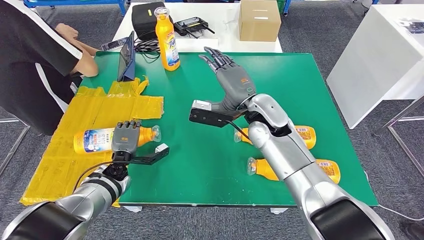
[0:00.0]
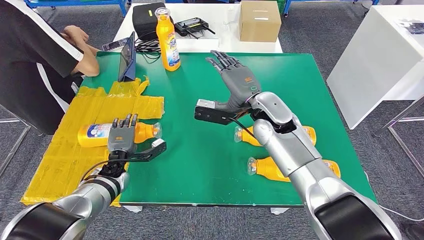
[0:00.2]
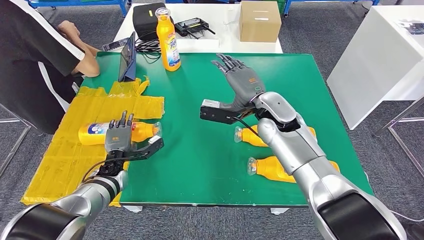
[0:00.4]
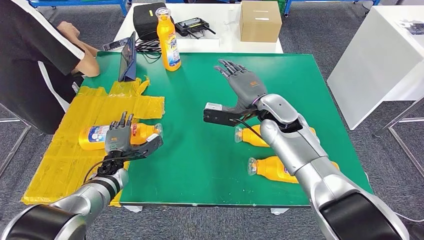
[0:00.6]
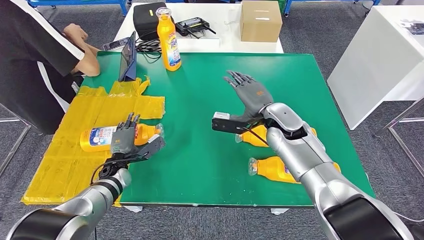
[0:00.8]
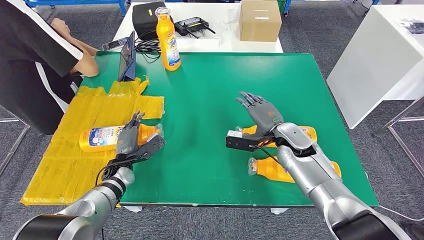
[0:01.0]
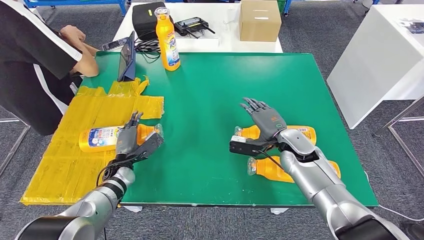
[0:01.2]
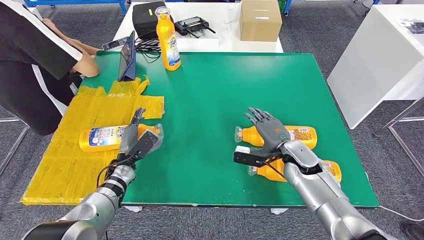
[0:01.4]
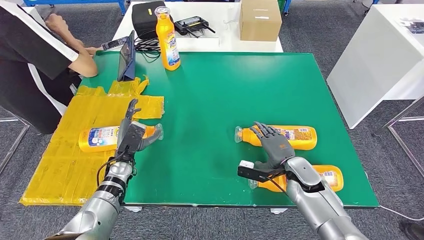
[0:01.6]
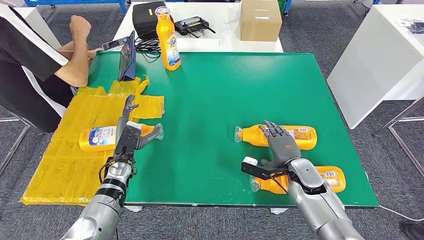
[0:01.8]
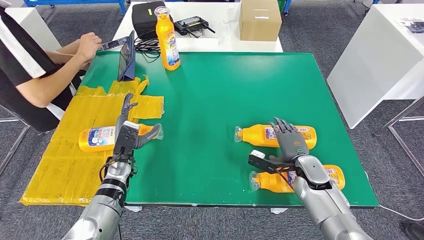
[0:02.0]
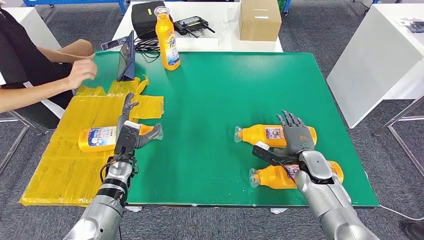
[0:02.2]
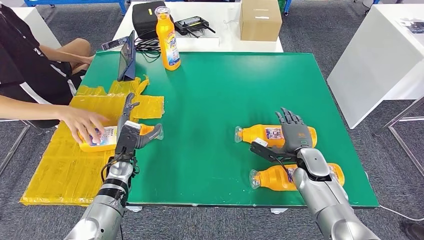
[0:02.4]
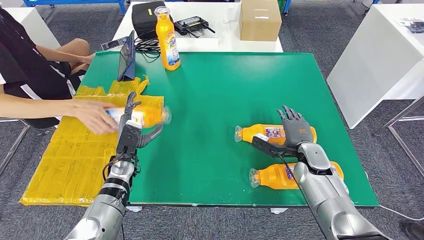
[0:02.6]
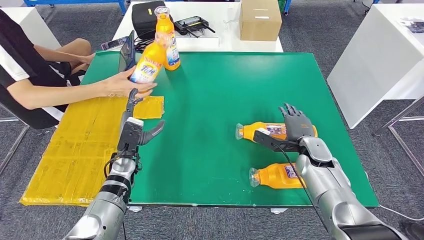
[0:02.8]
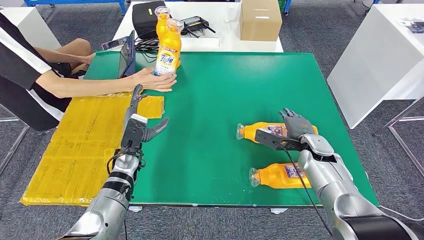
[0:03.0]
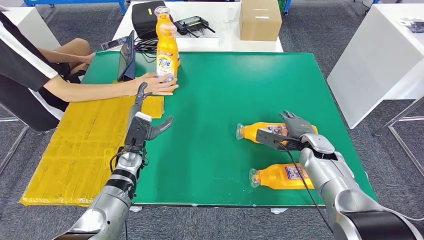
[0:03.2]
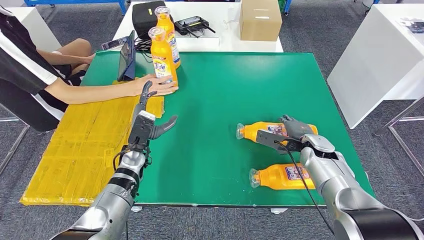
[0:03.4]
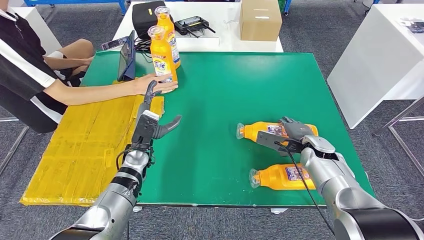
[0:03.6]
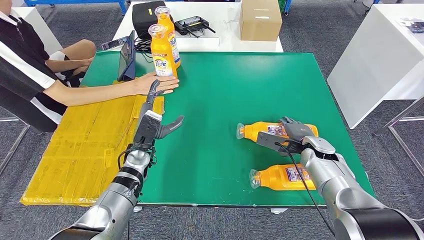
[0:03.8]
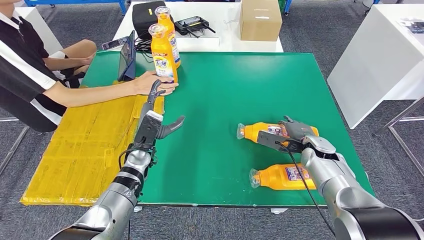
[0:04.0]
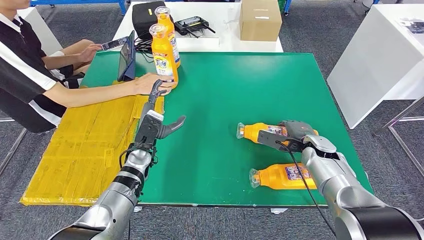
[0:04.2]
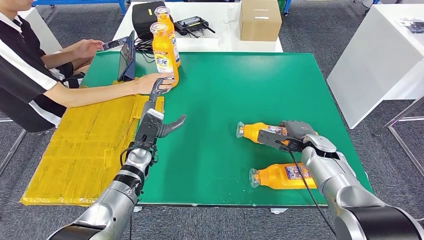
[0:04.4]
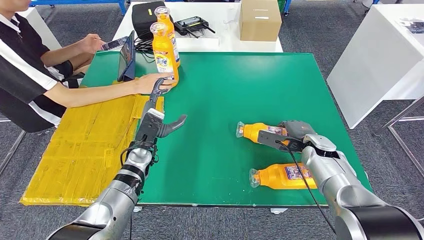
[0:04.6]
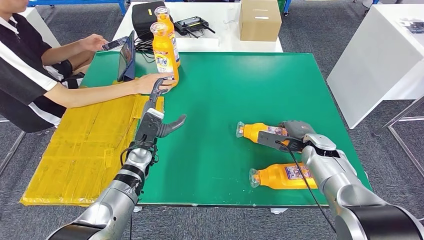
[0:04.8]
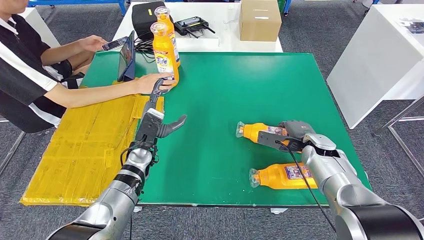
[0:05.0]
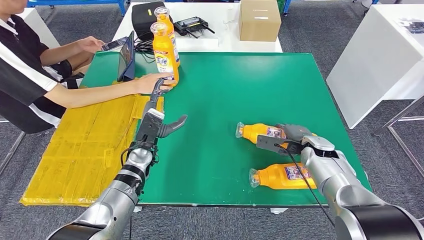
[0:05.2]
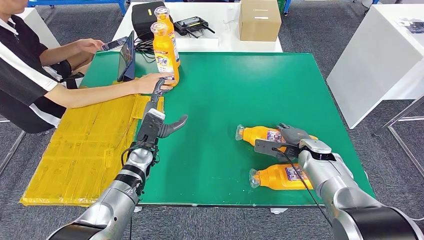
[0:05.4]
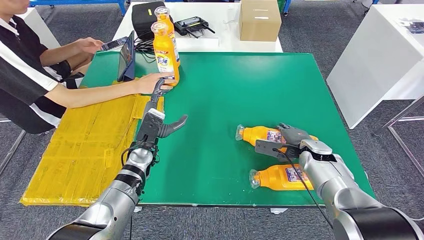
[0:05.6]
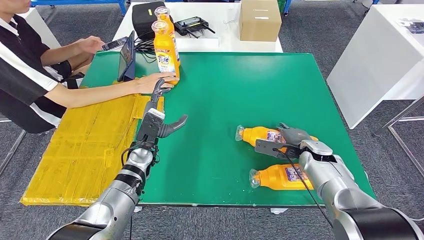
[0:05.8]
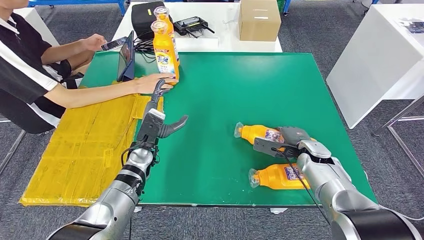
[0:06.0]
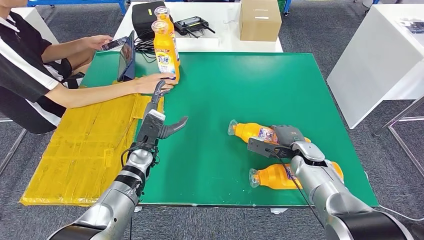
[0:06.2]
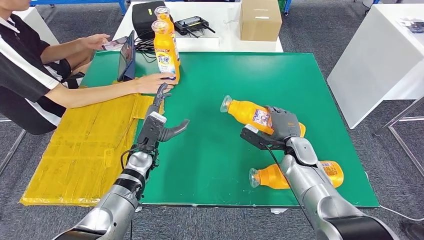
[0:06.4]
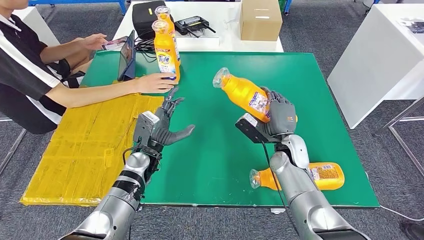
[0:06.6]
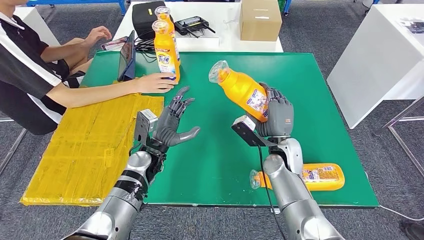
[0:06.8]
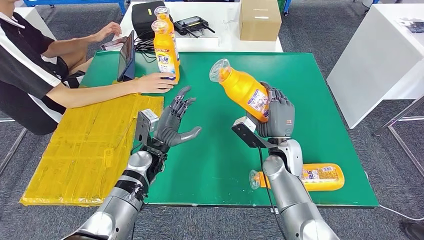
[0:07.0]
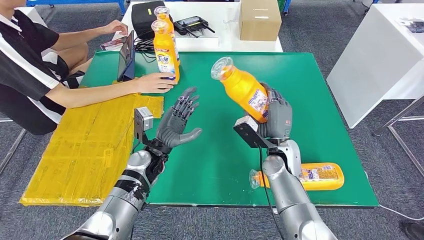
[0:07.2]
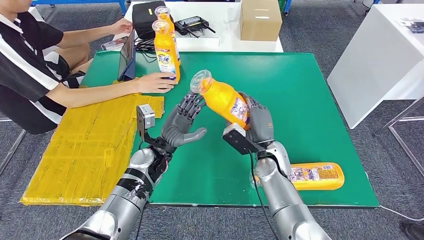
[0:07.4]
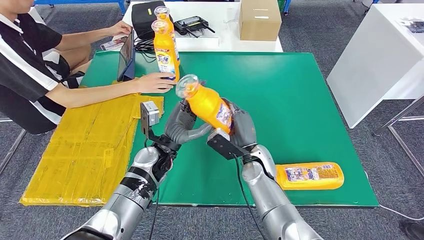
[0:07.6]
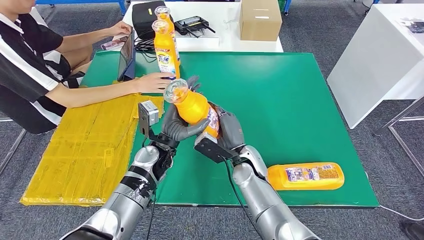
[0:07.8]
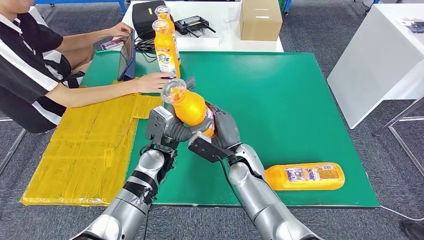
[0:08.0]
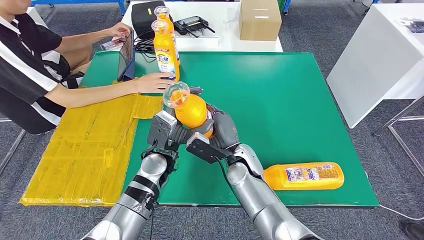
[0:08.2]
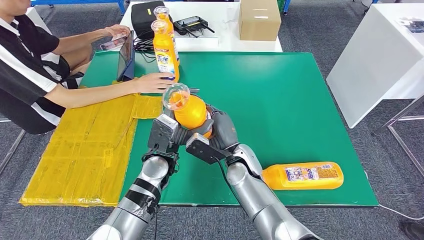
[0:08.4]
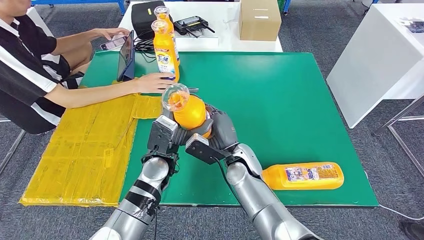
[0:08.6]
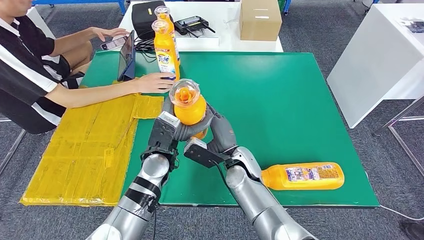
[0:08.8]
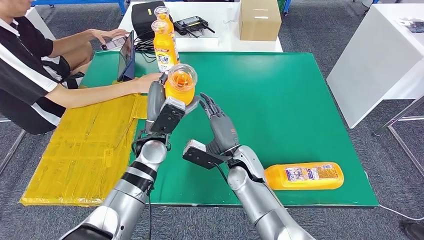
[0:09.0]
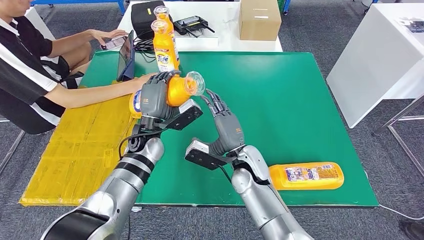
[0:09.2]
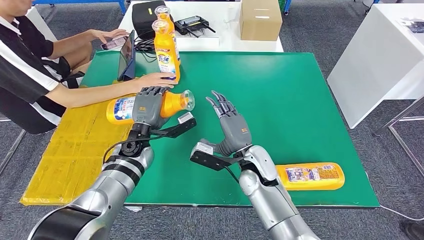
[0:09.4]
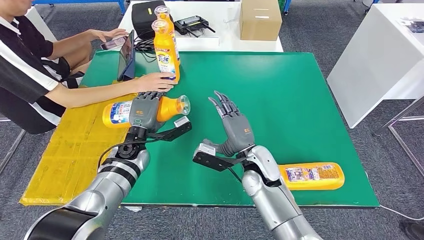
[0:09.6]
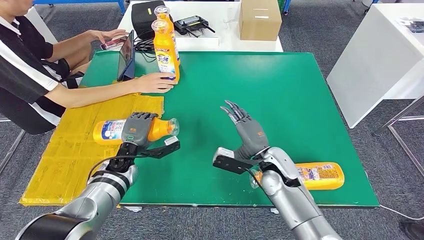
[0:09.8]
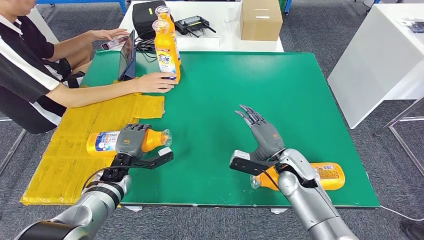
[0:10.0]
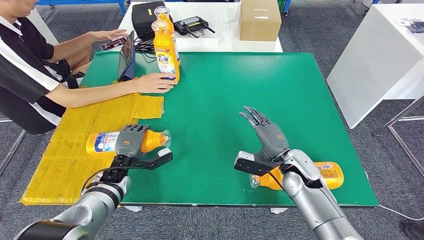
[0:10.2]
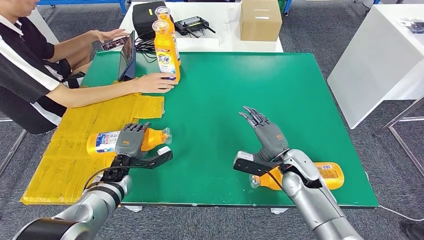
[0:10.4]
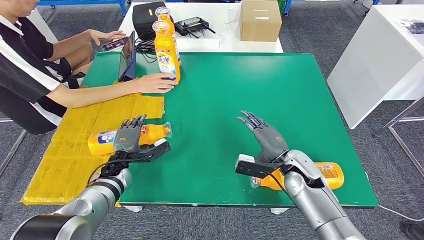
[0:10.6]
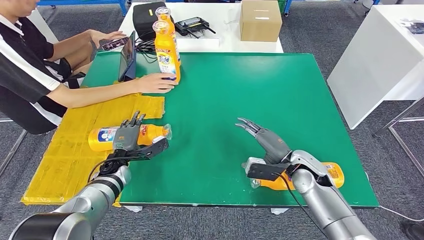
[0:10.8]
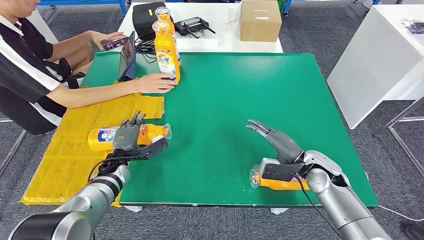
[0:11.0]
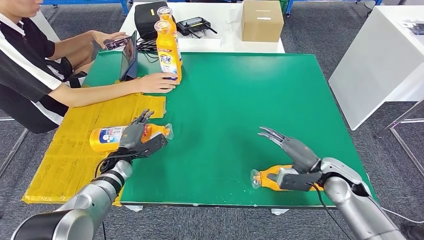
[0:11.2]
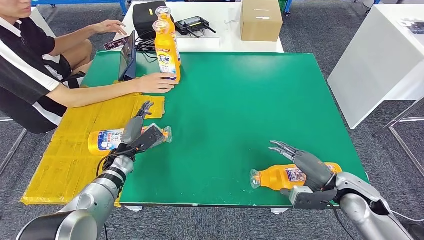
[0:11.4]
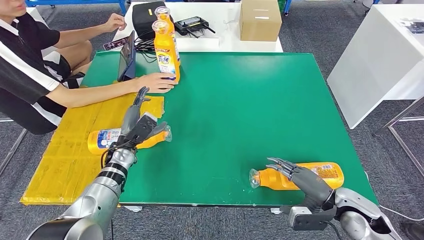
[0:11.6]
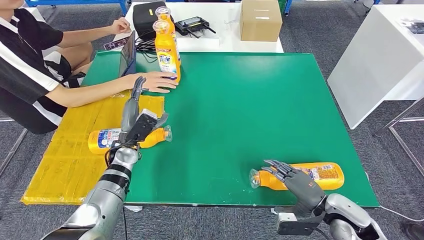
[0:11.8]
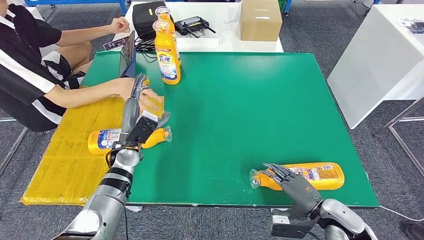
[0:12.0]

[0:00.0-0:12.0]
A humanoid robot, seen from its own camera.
Step, 0:00.0 to 0:03.0: Flip the fast-moving consumer goods bottle to the front side.
Step, 0:03.2 to 0:09.6: Pick up the fast-moving consumer goods bottle from the table.
0:03.0 to 0:06.0: The hands move only a little.
0:10.4 to 0:12.0: The right hand travels backward, to the right and downward by roughly 15 cm; the left hand travels upward and to the right by approximately 10 cm.

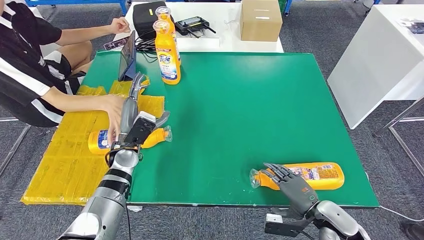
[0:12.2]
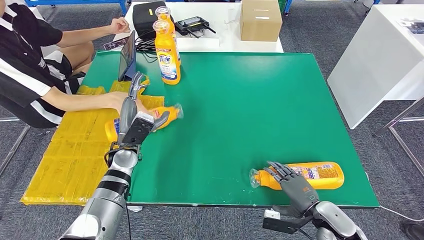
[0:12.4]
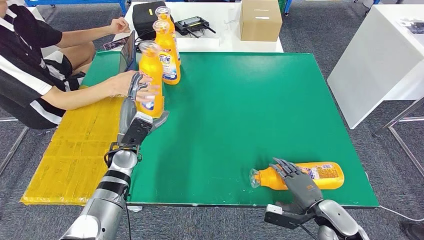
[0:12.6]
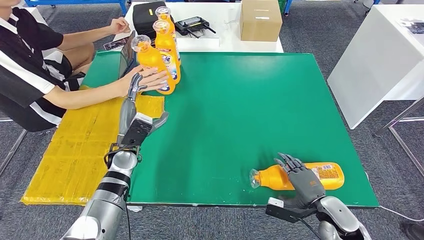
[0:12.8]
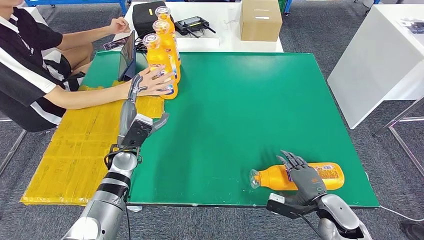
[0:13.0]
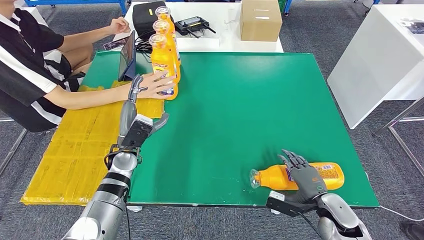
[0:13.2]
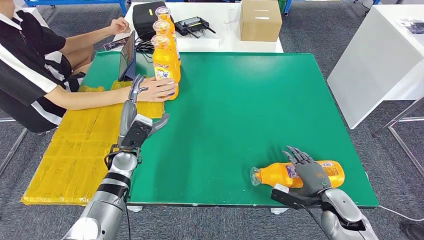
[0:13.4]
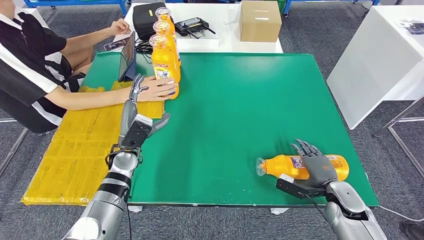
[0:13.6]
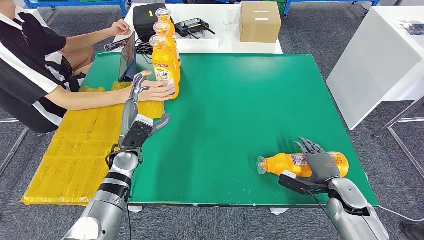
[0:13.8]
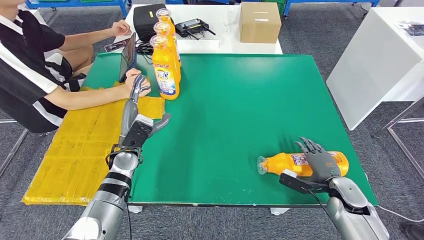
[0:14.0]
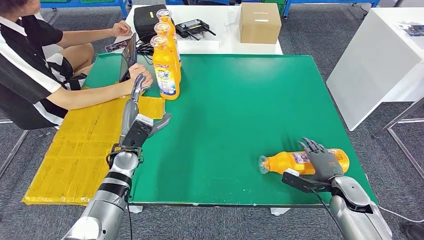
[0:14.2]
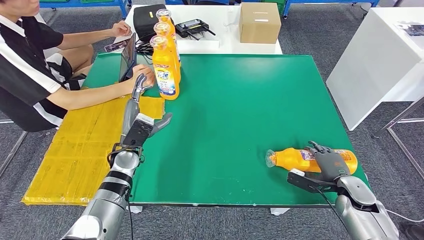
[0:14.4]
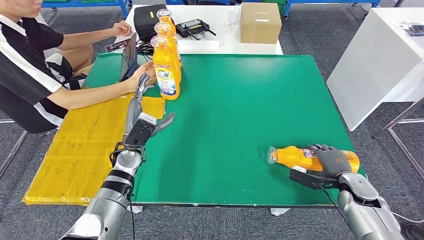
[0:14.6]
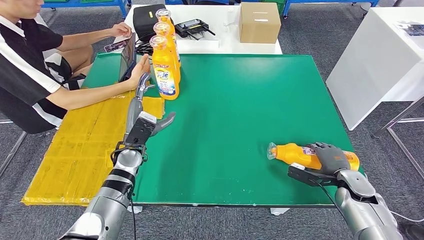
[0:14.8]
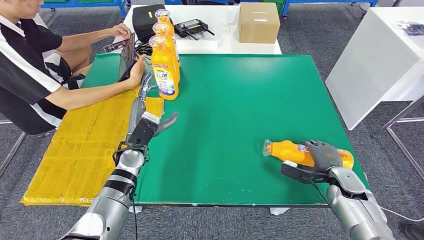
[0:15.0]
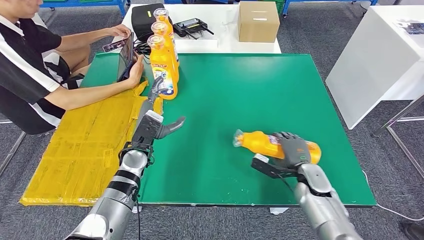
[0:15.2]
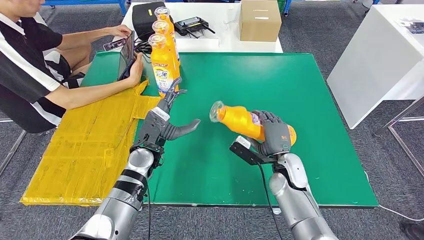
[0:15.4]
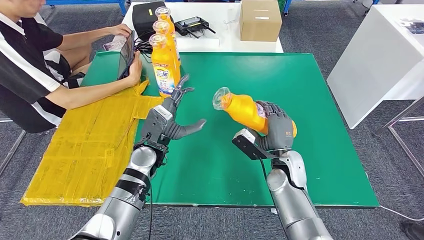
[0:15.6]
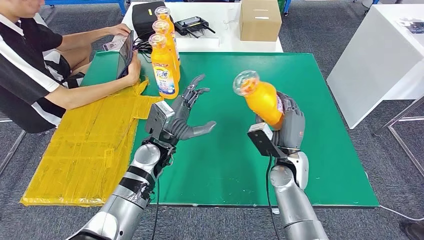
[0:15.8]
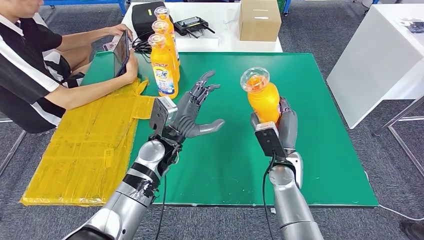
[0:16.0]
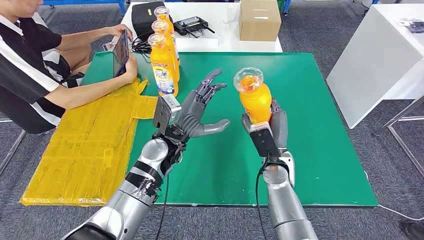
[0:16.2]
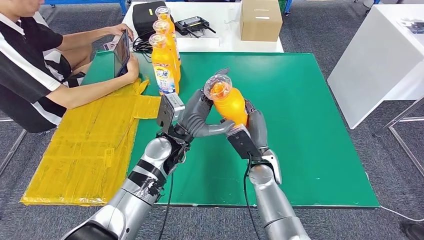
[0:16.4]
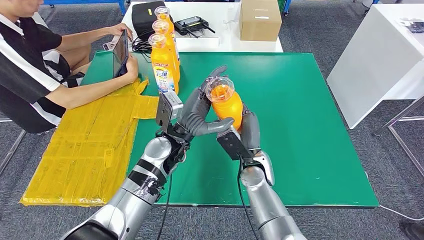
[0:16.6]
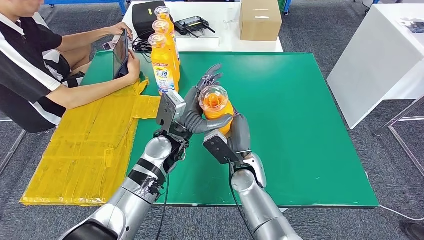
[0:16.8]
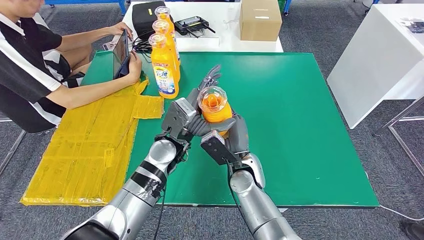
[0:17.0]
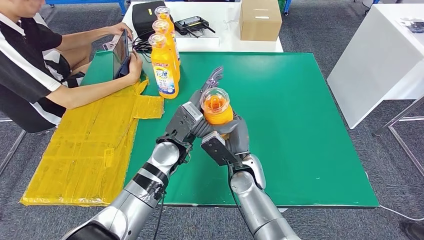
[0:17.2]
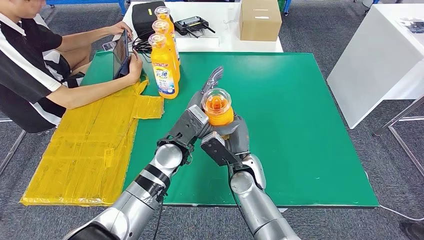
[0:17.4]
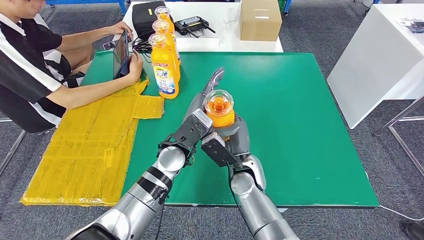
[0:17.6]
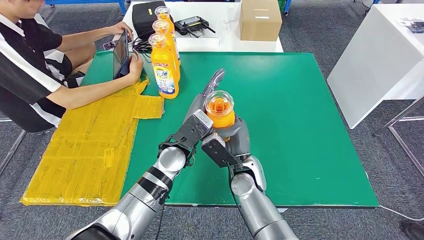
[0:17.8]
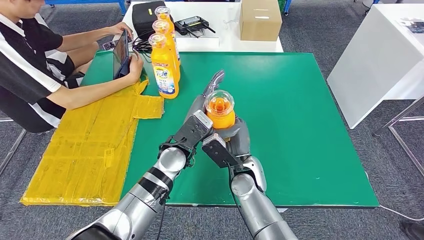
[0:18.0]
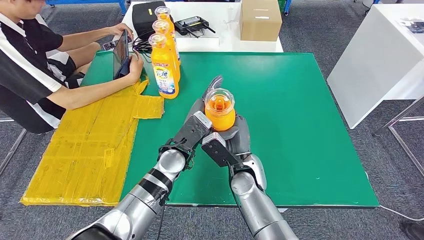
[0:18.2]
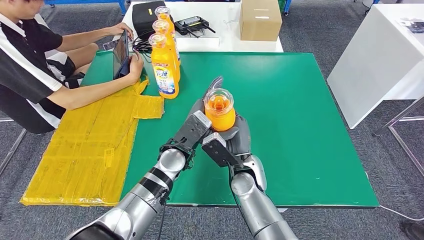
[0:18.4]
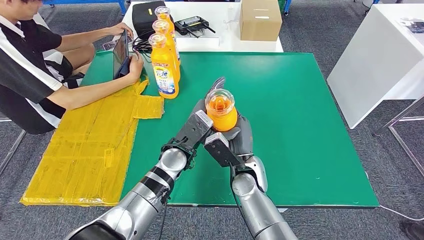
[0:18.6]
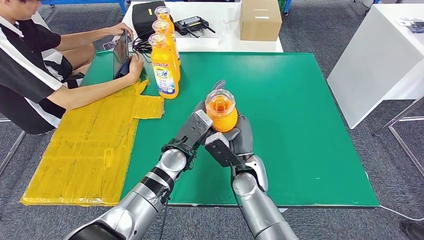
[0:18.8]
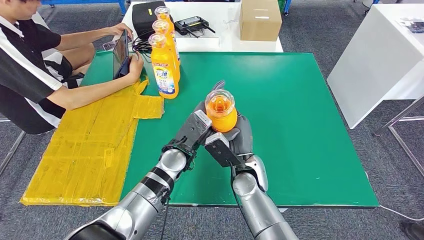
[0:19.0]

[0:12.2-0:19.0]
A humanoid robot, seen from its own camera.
Step, 0:13.0 to 0:18.0: Pick up the fast-moving consumer goods bottle from the table.
0:12.2 to 0:13.6: The right hand travels forward by about 5 cm.
0:13.6 to 0:15.0: The right hand changes place by approximately 5 cm.
0:16.2 to 0:17.6: The right hand travels to the left by about 10 cm.
0:17.6 to 0:19.0: The hands move only a little.
